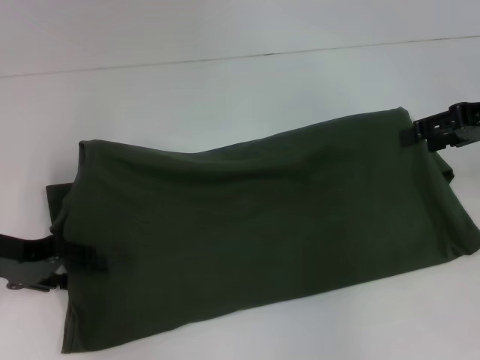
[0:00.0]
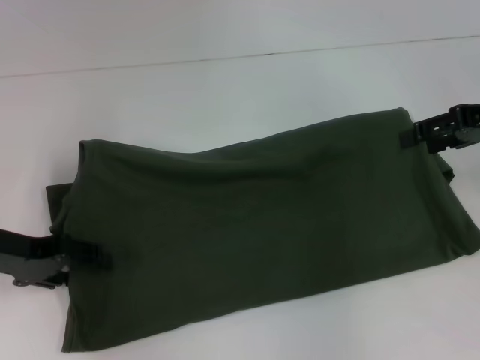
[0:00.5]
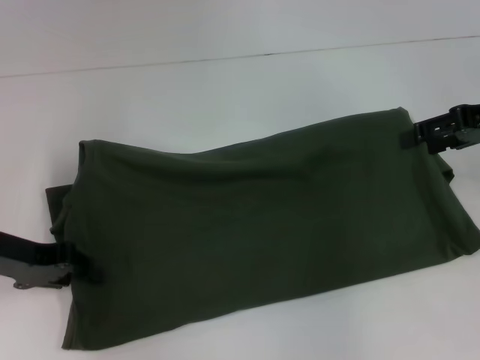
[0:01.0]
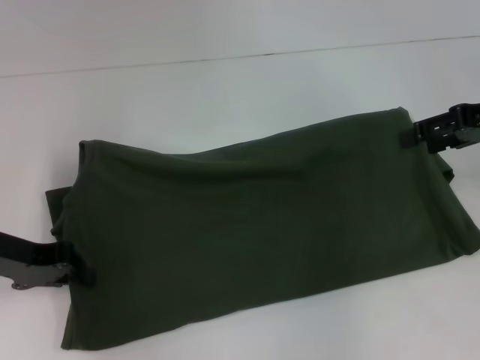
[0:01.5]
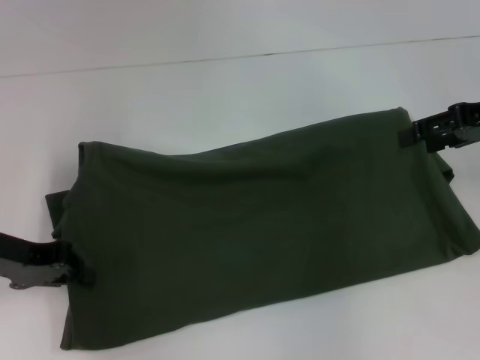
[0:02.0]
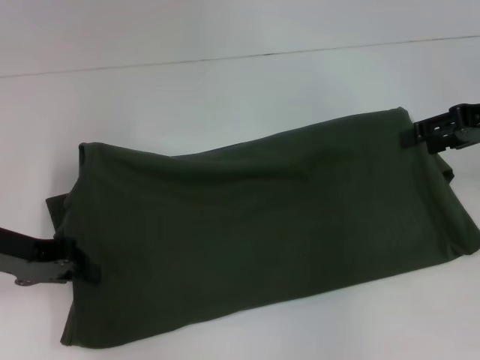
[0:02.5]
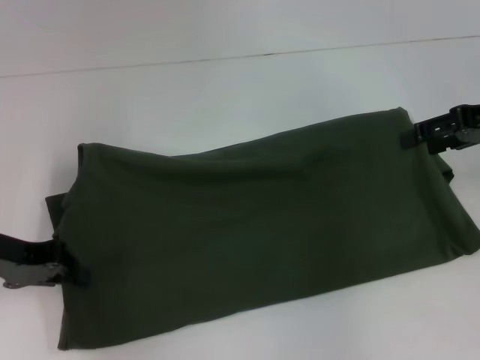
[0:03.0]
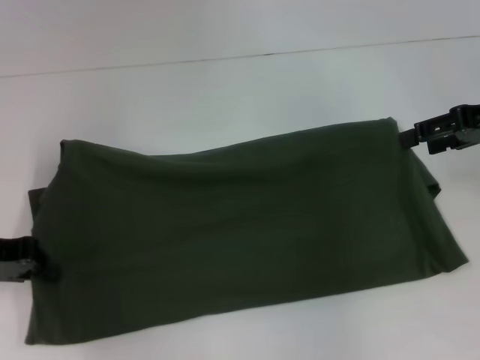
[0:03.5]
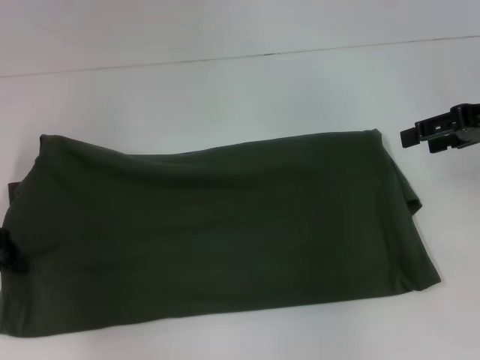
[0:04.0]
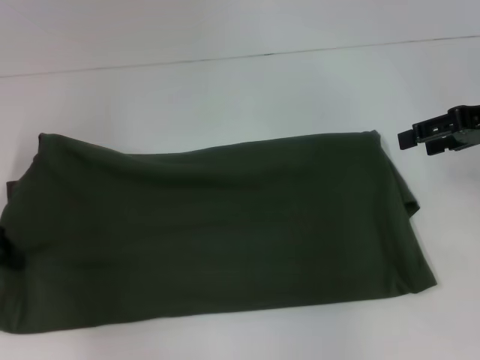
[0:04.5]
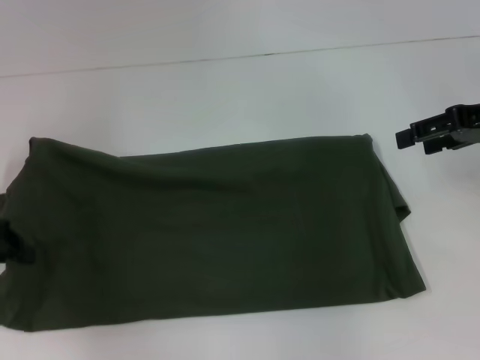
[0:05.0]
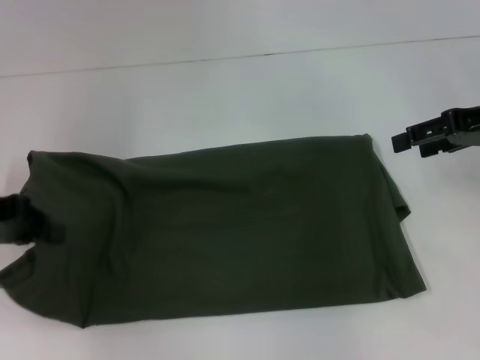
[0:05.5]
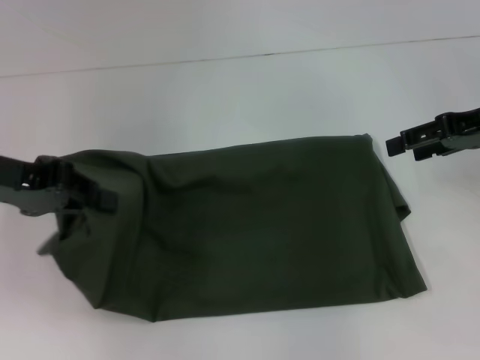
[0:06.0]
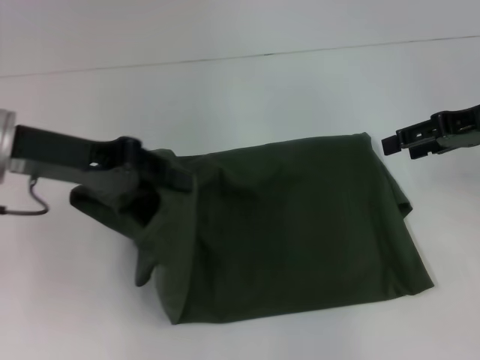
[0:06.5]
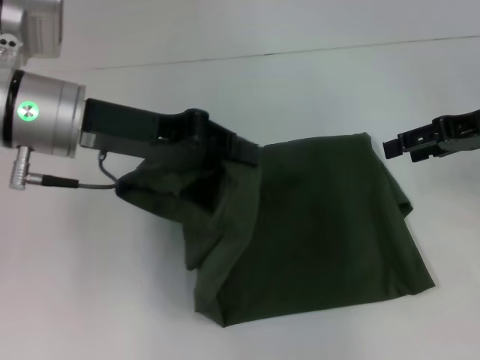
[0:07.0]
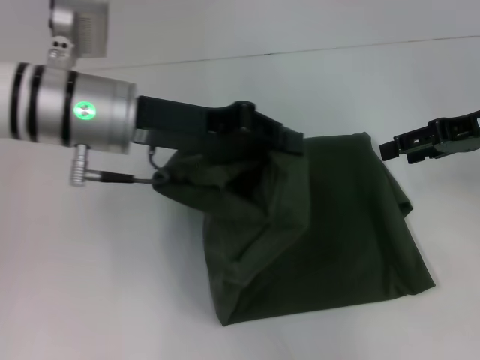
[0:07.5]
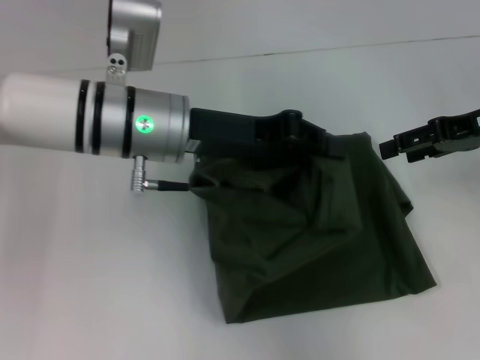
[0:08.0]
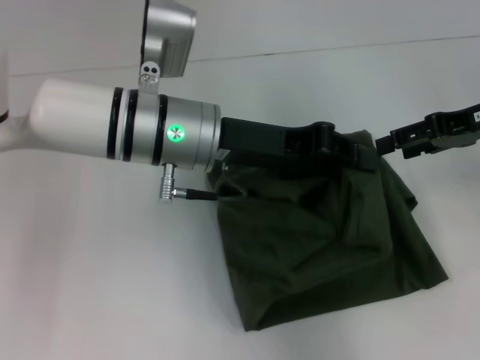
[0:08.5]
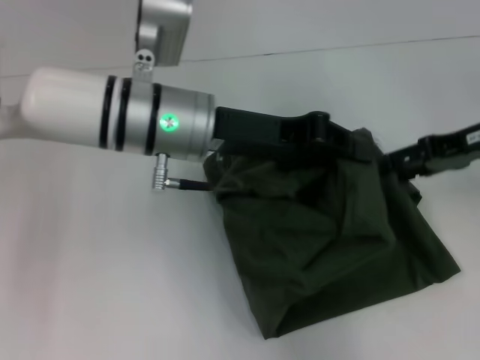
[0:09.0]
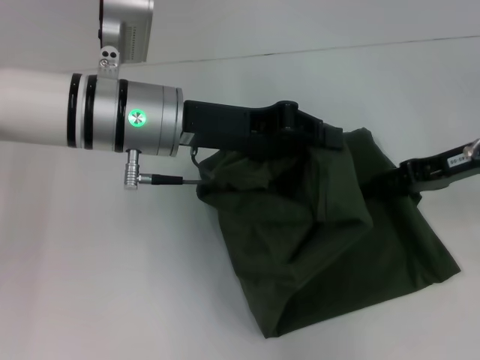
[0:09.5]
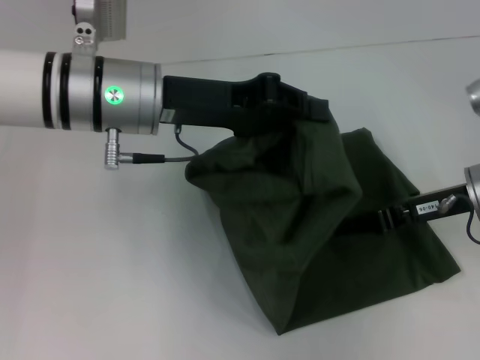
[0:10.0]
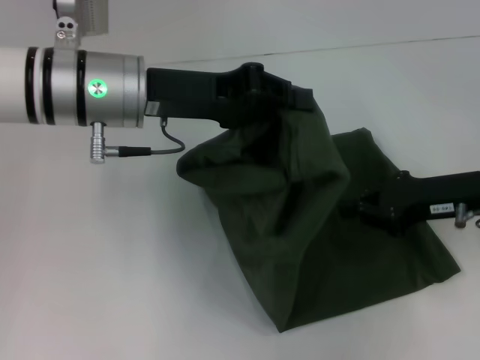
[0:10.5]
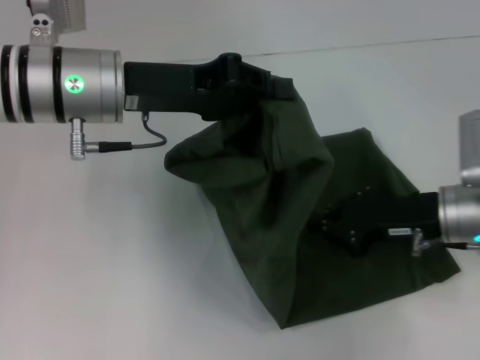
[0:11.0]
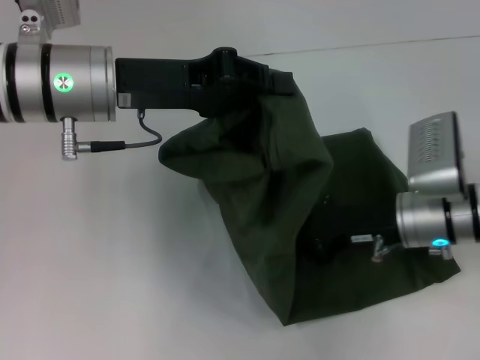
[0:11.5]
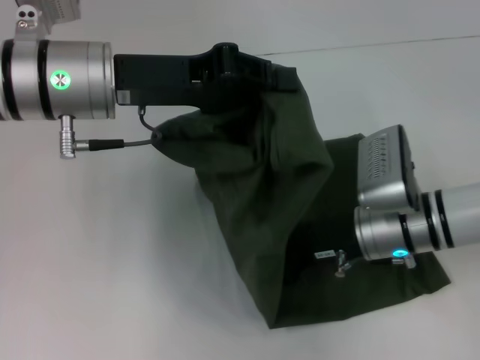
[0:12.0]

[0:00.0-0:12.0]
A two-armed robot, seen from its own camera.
0.0 to 2.0 s: The left gripper closes its fingers.
2.0 to 4.0 s: There are only small adjustments of the grippers.
4.0 to 6.0 s: The left gripper is displaced upward and to the right by about 10 cm.
6.0 to 8.0 s: The left gripper moves to the right, some 20 cm.
8.0 to 10.0 s: The right gripper heads downward, covering some 5 cm, and closes.
10.0 to 12.0 s: The right gripper heads to the left and downward, covering some 10 cm.

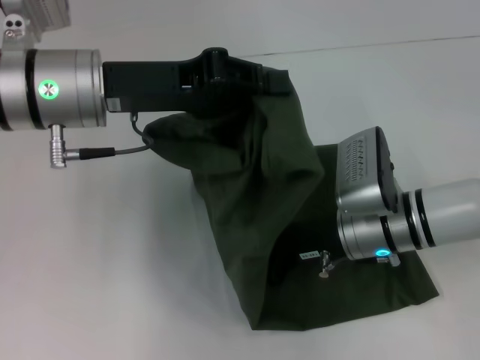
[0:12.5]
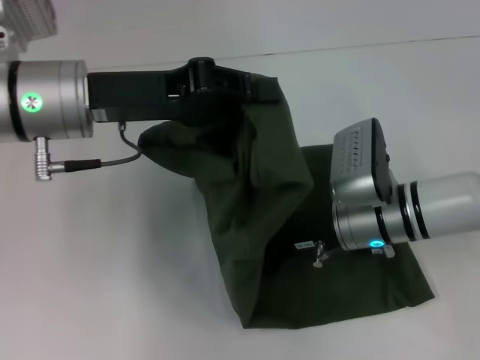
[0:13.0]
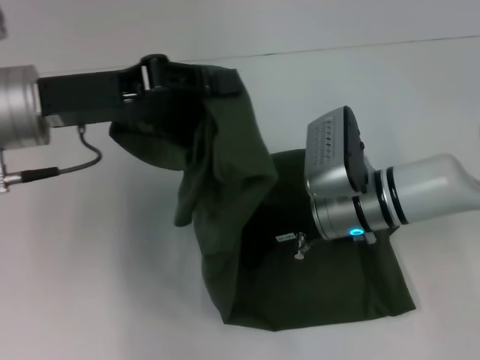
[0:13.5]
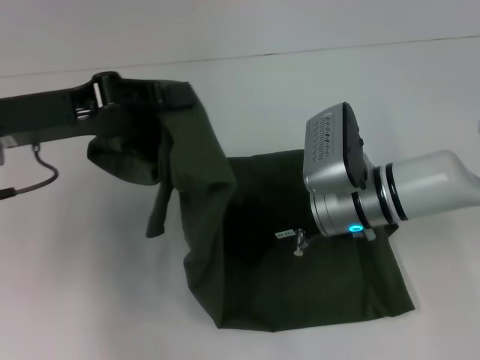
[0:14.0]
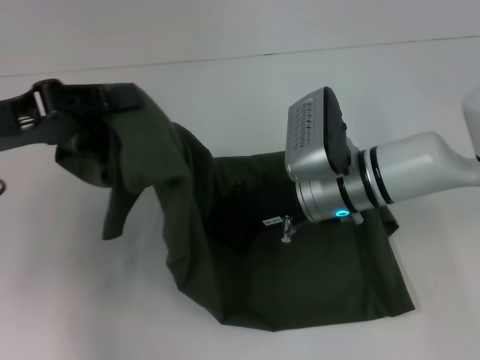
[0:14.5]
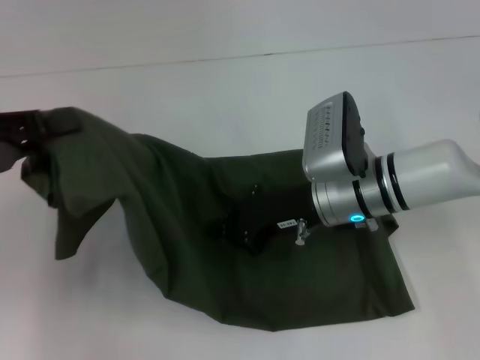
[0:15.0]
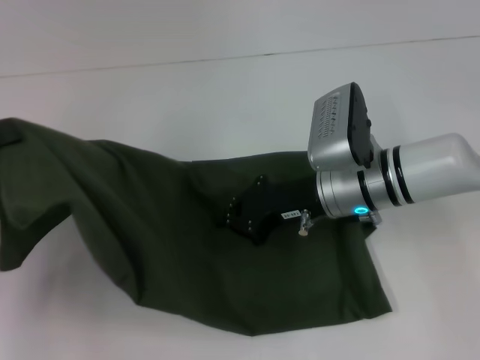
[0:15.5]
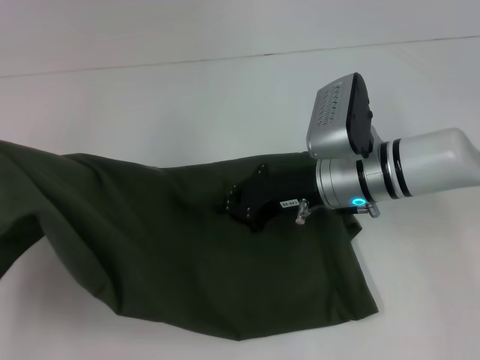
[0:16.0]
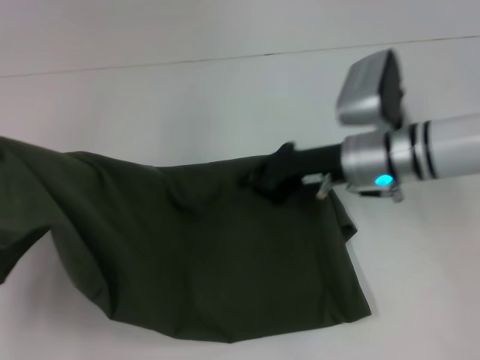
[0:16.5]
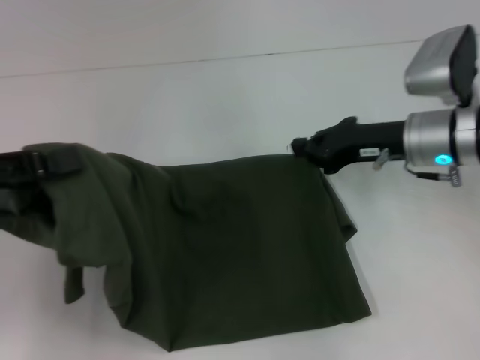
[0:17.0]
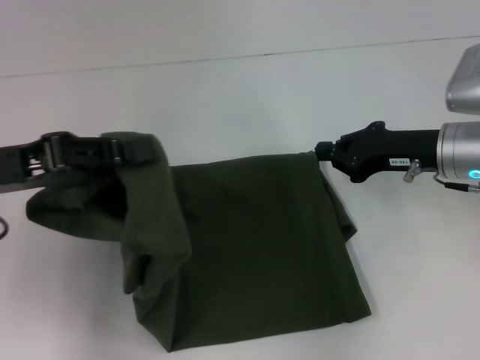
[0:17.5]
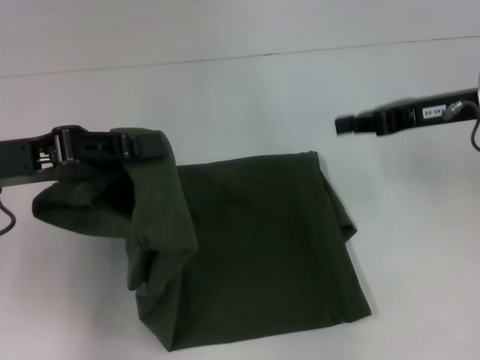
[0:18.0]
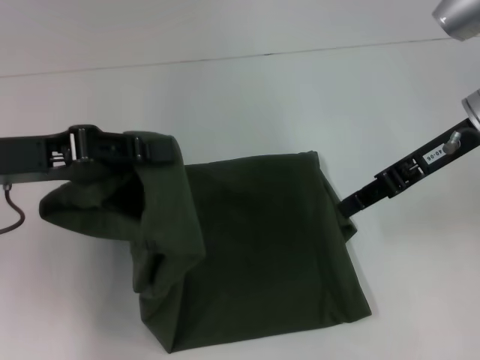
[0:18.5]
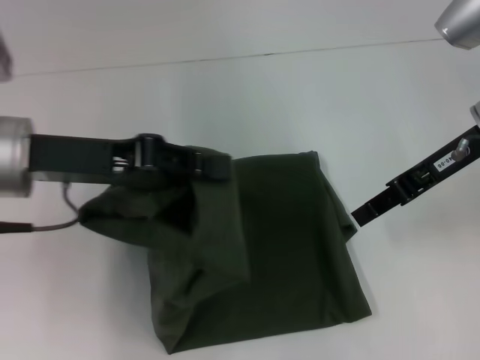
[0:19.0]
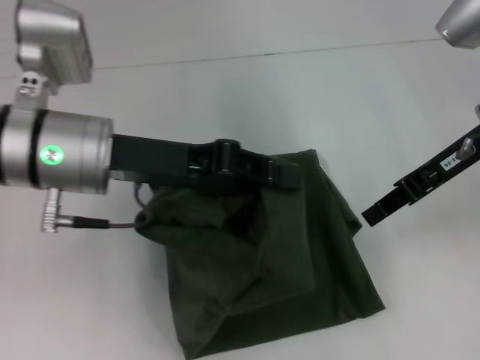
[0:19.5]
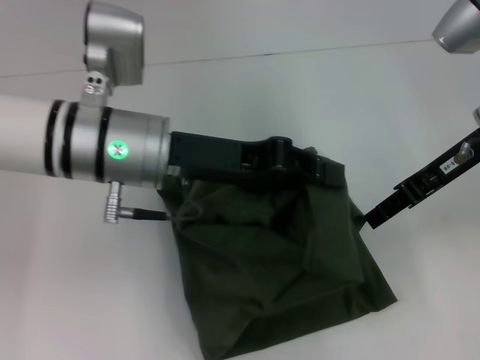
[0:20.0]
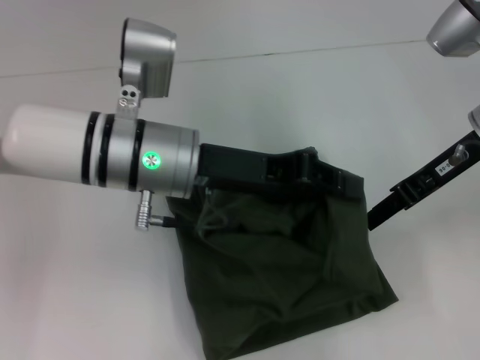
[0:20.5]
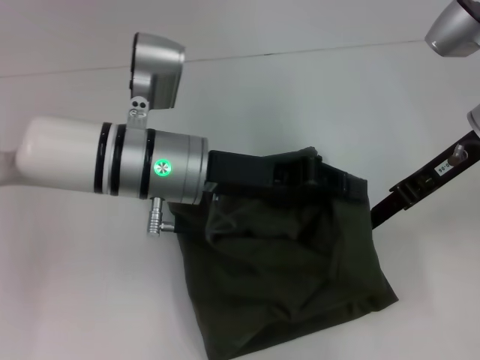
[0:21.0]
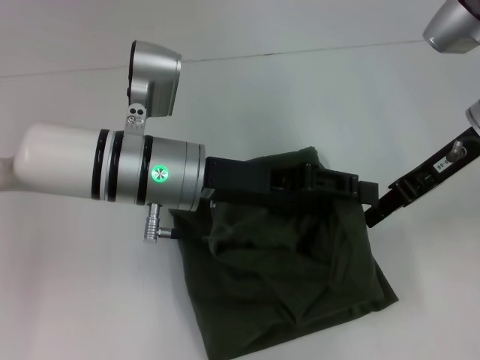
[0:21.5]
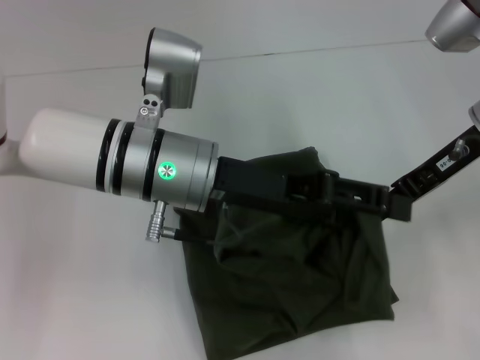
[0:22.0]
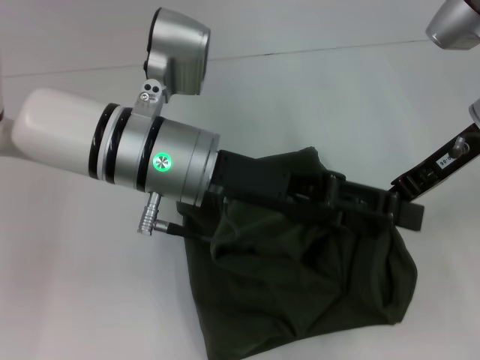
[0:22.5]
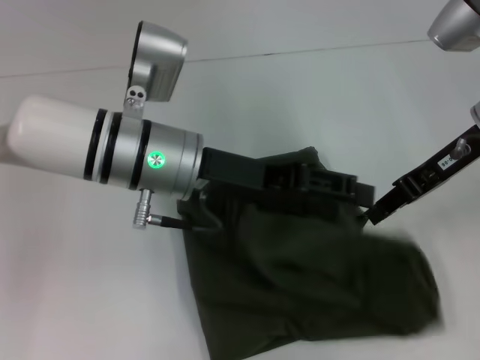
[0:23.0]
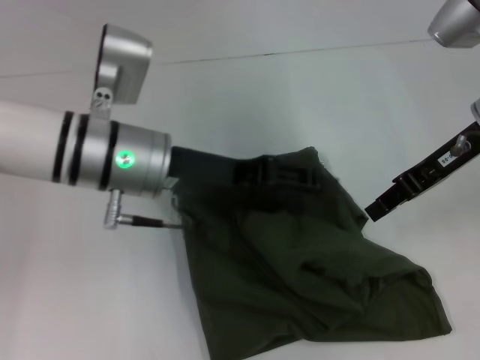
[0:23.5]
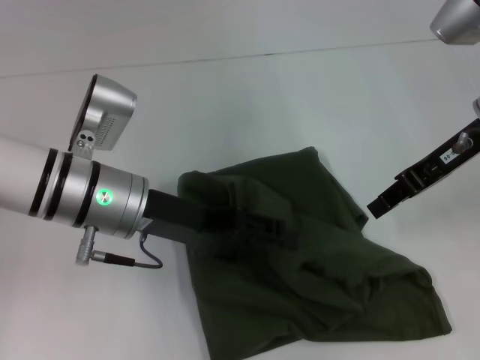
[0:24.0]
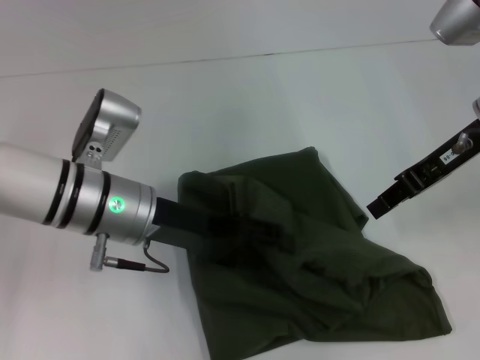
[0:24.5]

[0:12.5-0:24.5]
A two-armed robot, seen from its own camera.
12.5 to 14.5 s: The right gripper changes place by roughly 5 cm, while the left gripper goes approximately 15 cm to the left and backward.
14.5 to 16.5 s: The right gripper ends up about 5 cm from where it was, while the left gripper travels to the left and backward by about 10 cm.
16.5 to 18.5 s: The left gripper travels to the right and forward by about 15 cm. The right gripper shifts about 15 cm upward and to the right.
18.5 to 20.5 s: The left gripper is displaced to the right by some 15 cm.
20.5 to 22.5 s: The left gripper opens.
22.5 to 24.5 s: The left gripper goes some 10 cm downward and to the left.

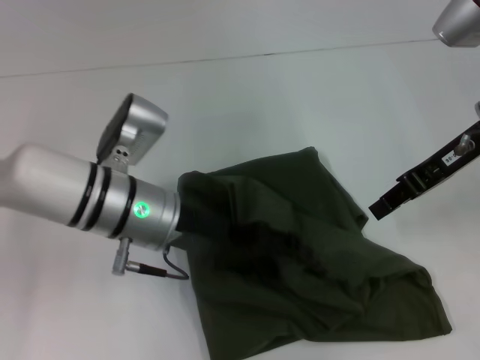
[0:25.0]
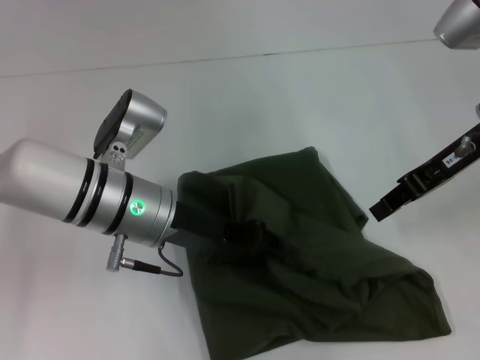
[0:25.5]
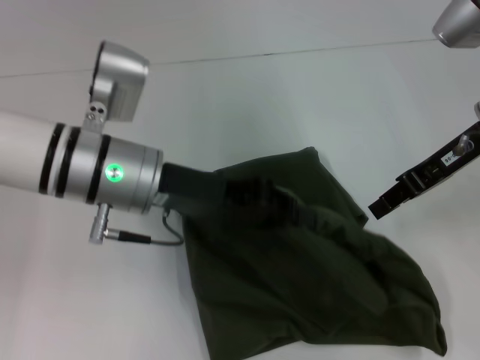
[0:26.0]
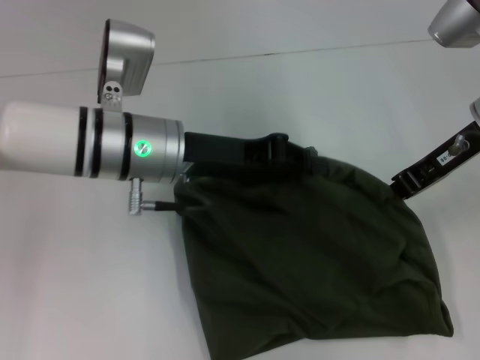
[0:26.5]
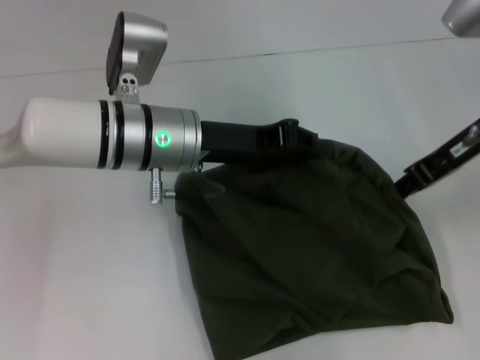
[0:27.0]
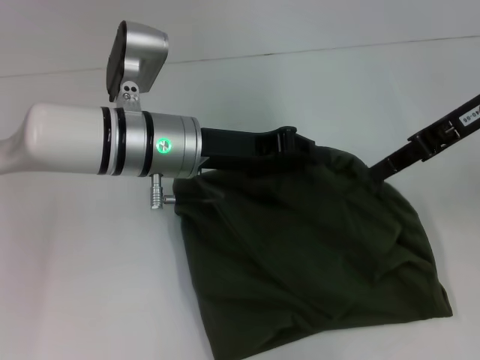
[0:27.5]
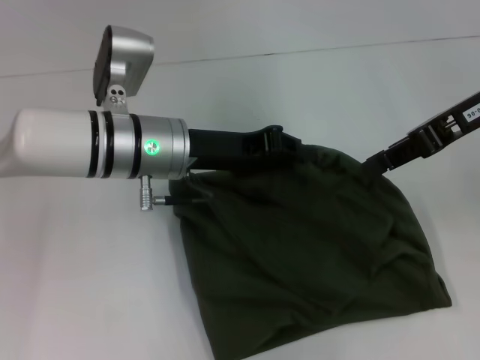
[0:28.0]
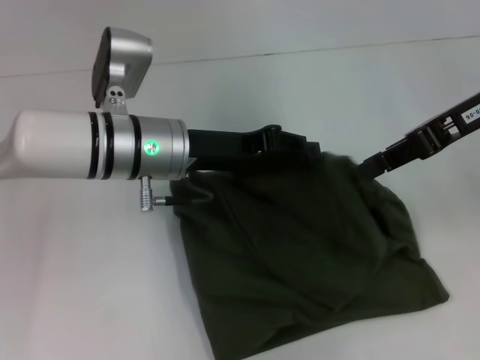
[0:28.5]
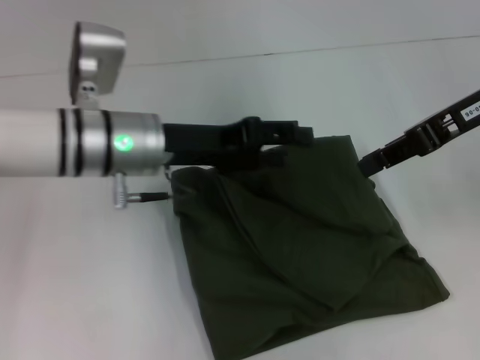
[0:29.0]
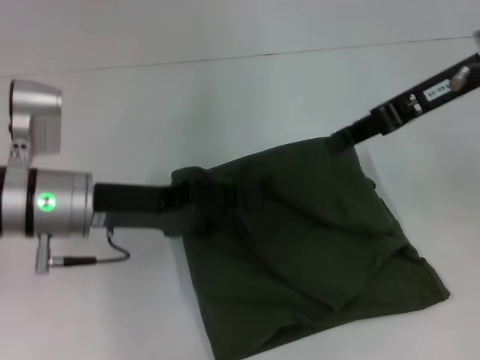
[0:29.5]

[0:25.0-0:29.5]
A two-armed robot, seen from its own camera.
Step, 25.0 to 29.0 s: Fold the clothes with your left hand.
25.0 to 27.0 s: The left gripper moves some 5 cm, and closes up.
27.0 to 29.5 s: The right gripper shifts by approximately 5 cm, while the left gripper shifts approximately 10 cm to the left, and opens up.
